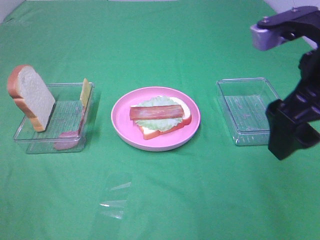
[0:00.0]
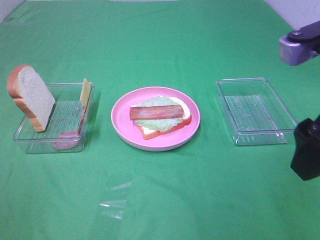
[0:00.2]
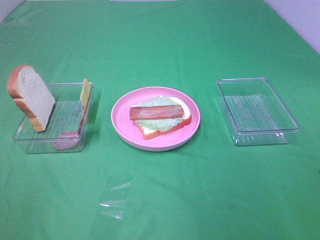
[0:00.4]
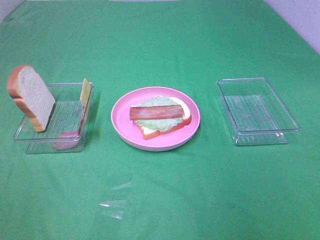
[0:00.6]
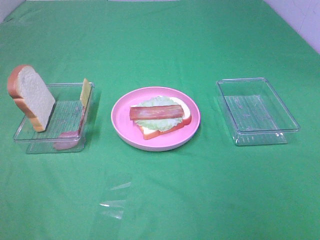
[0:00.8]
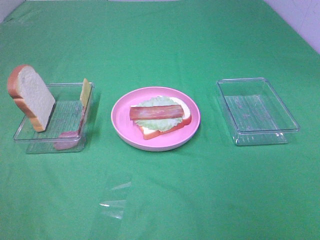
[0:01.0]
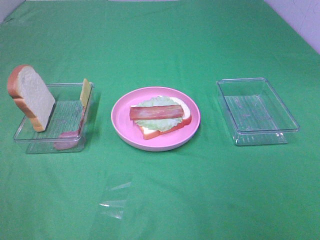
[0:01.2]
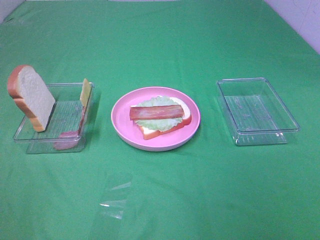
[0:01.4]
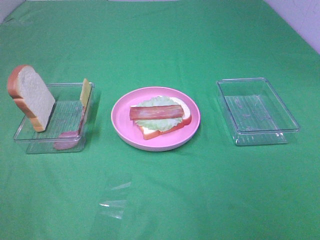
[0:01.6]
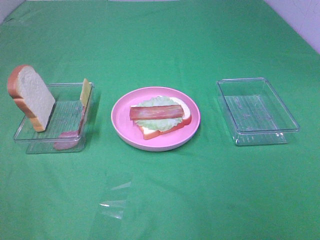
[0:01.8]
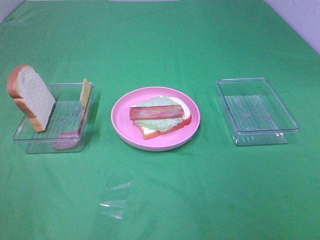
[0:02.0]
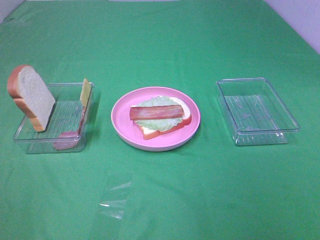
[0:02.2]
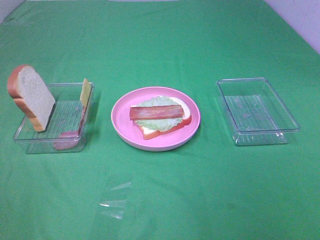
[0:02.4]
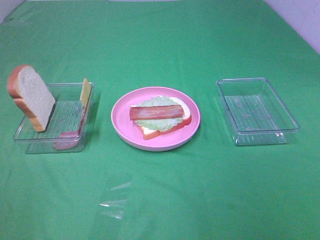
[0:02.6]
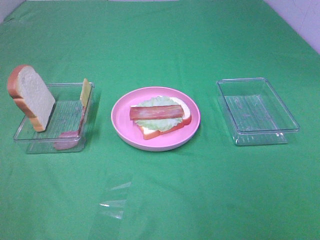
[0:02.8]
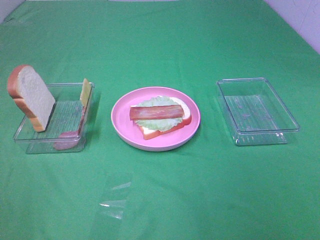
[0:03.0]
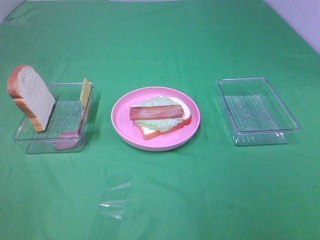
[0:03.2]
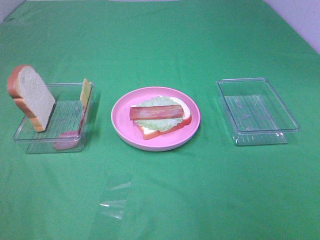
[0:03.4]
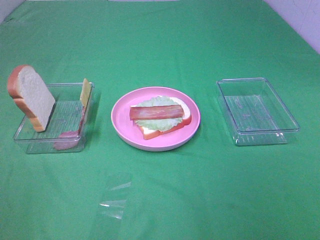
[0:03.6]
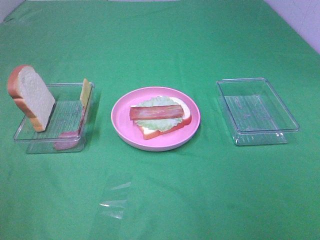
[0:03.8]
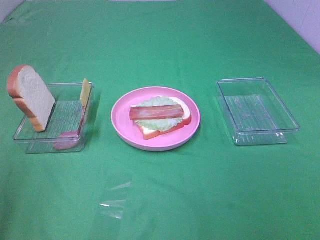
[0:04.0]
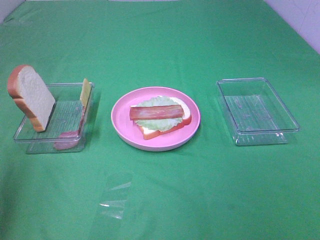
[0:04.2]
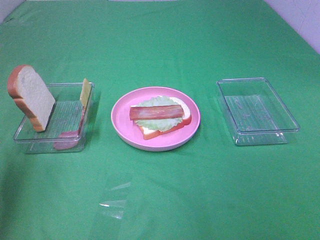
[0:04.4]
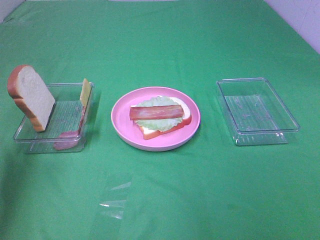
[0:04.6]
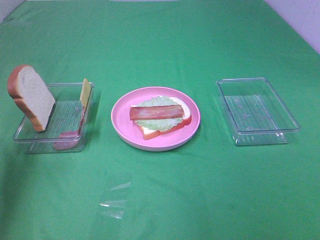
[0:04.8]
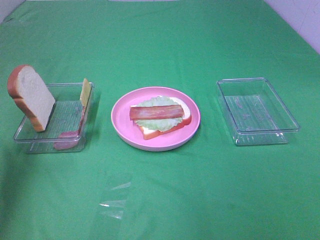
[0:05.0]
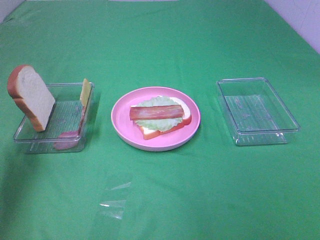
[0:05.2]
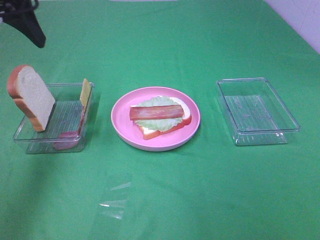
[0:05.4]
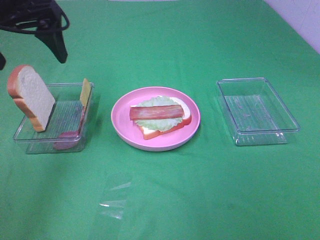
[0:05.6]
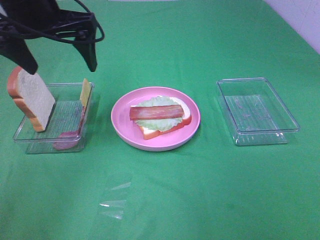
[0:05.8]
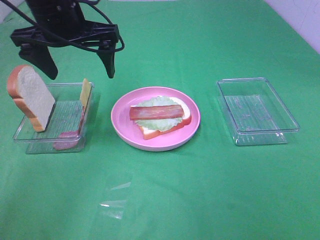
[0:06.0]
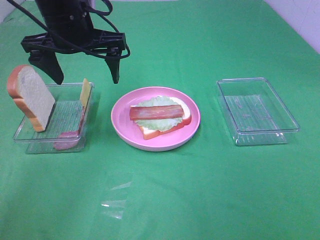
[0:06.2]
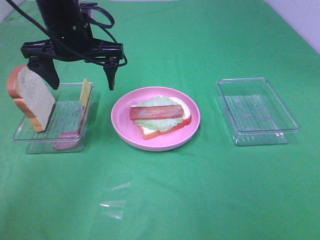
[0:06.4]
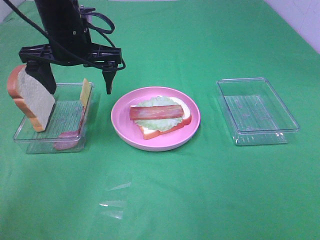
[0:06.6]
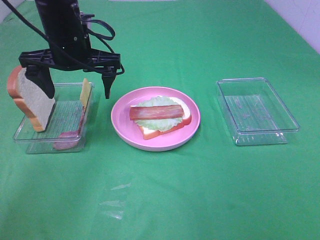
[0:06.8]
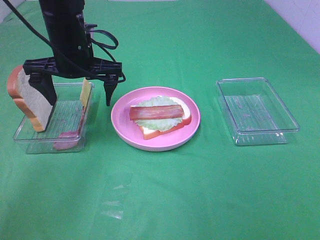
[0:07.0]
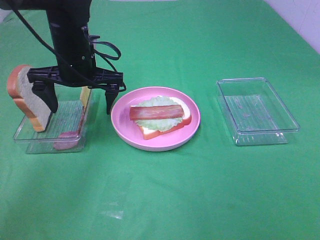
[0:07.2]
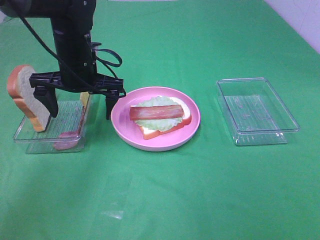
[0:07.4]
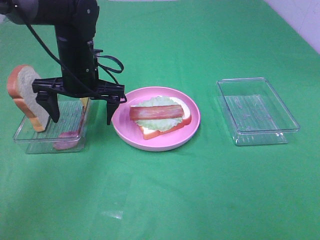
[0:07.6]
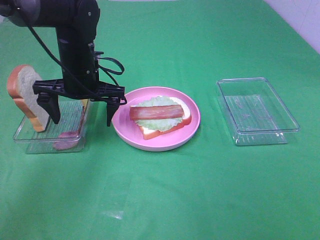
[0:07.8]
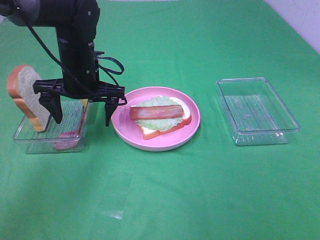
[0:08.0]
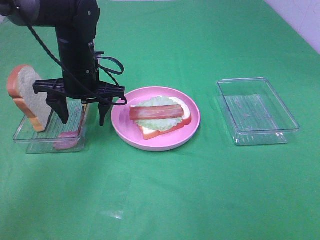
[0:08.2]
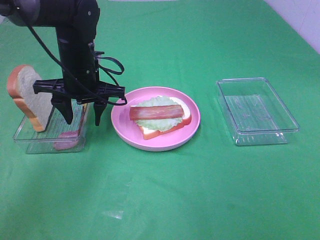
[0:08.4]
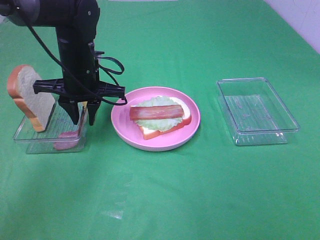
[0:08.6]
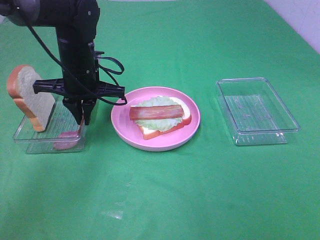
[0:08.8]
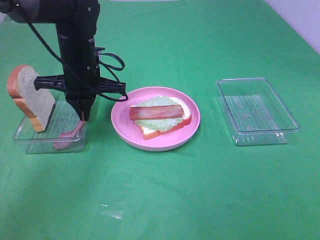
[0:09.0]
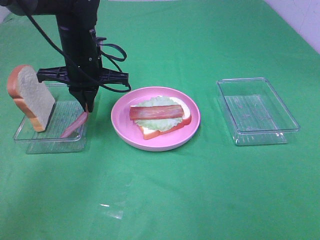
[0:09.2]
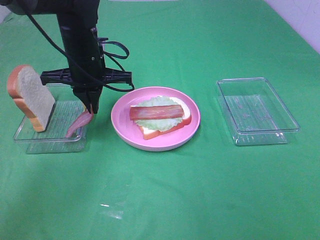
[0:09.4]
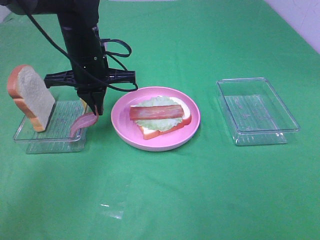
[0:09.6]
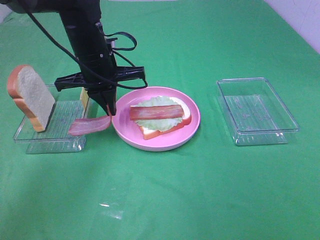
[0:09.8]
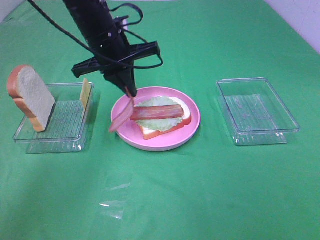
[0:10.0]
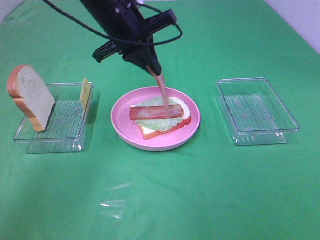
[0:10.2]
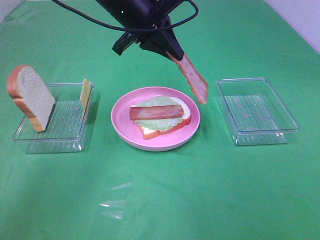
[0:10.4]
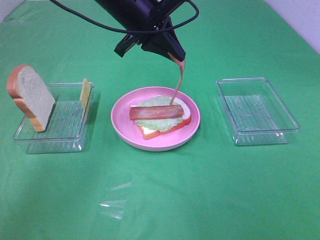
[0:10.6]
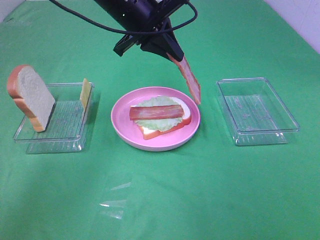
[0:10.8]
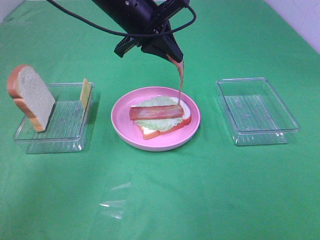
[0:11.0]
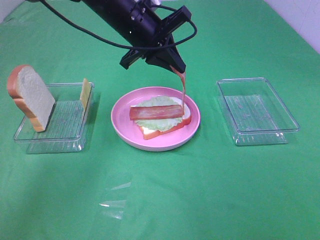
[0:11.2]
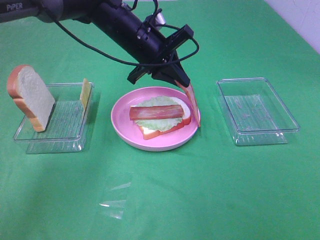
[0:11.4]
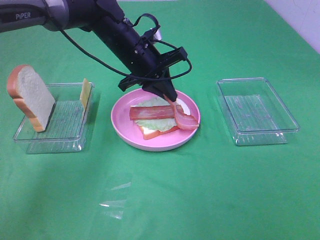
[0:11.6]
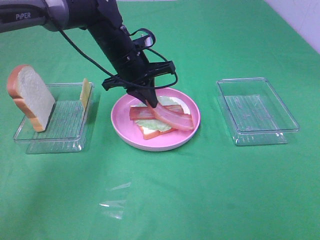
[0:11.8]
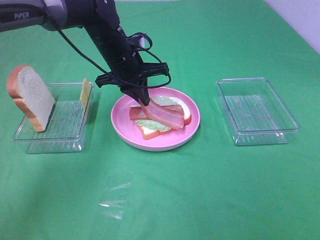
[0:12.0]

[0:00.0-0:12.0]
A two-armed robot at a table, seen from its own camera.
Task of the whole recording: Make sandwiches.
Step, 0:00.0 to 0:09.0: Left hand:grab the bacon.
0:00.0 to 0:01.6: The right gripper is displaced backward and to the right by approximately 20 cm.
0:01.6 to 0:03.0: The two grippers keep their place.
0:03.0 to 0:04.4: The left gripper shifts about 20 cm forward.
0:04.4 to 0:06.0: The left gripper goes about 25 cm to the right, forward and downward.
0:06.0 to 0:07.6: The left gripper goes approximately 10 cm downward.
0:07.6 to 0:09.0: The left gripper closes its fingers.
0:09.0 to 0:10.4: The left gripper heads upward and to the right, covering roughly 15 cm.
0:10.4 to 0:12.0: The left gripper goes approximately 10 cm downward.

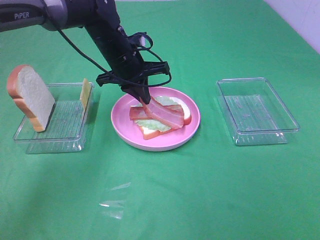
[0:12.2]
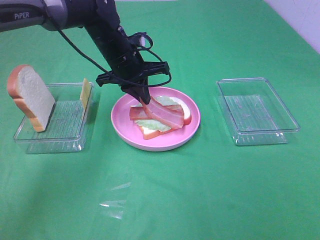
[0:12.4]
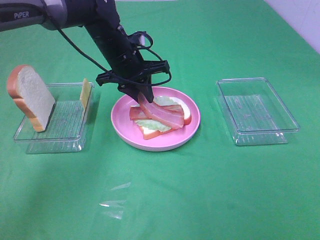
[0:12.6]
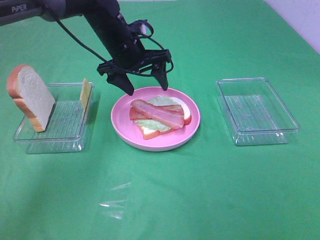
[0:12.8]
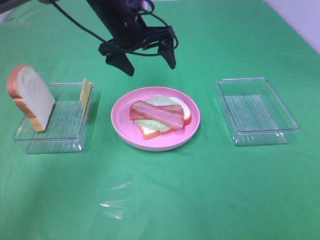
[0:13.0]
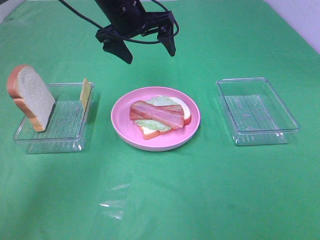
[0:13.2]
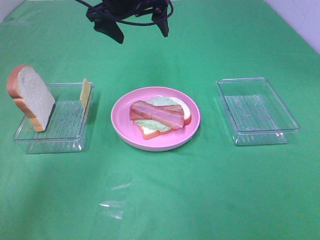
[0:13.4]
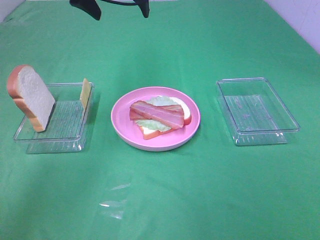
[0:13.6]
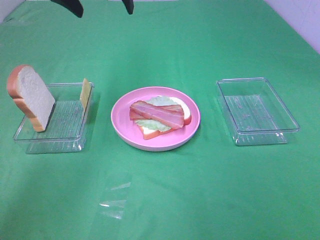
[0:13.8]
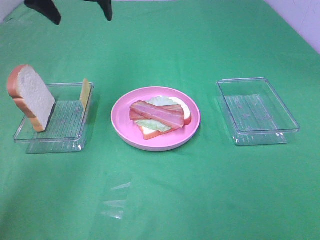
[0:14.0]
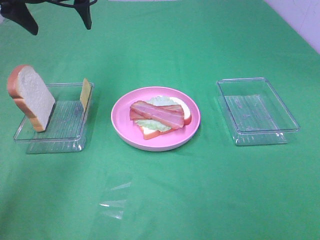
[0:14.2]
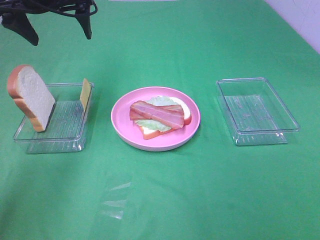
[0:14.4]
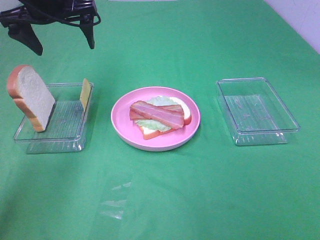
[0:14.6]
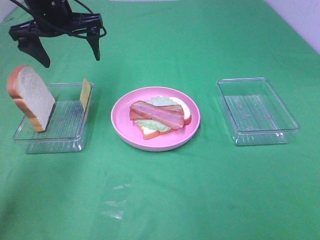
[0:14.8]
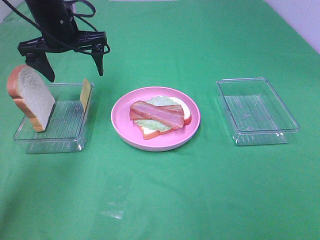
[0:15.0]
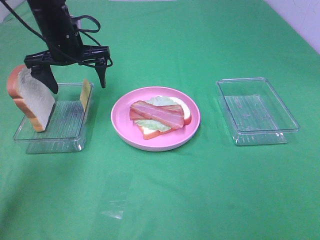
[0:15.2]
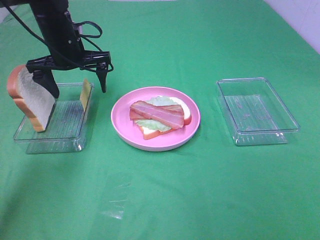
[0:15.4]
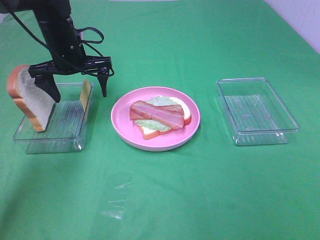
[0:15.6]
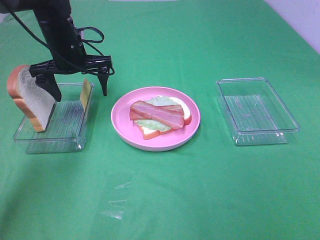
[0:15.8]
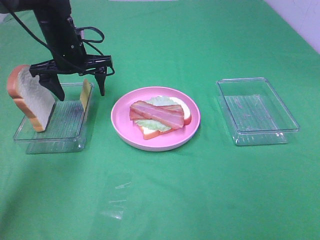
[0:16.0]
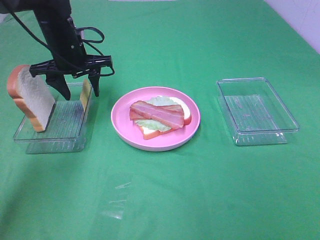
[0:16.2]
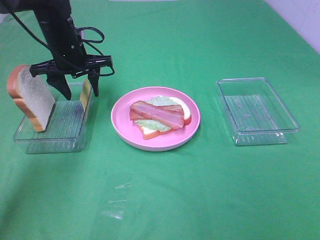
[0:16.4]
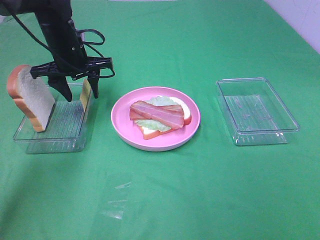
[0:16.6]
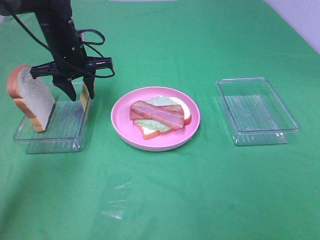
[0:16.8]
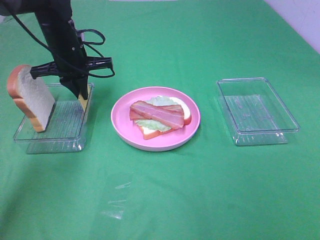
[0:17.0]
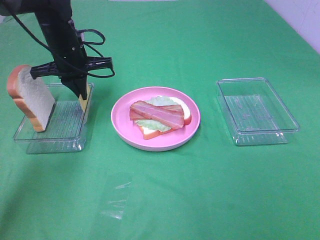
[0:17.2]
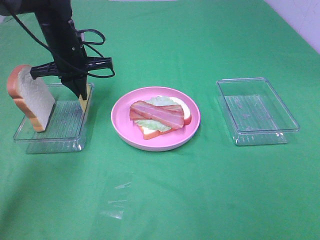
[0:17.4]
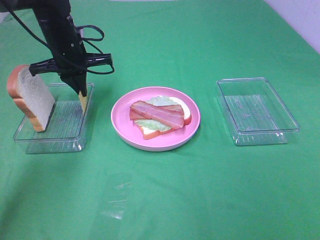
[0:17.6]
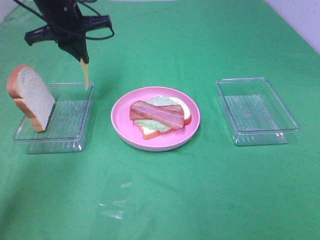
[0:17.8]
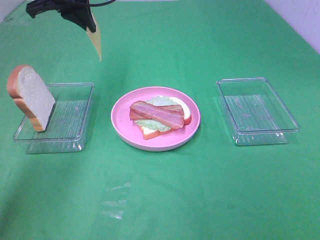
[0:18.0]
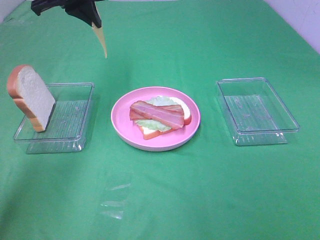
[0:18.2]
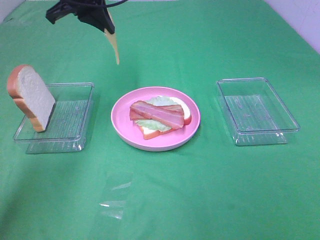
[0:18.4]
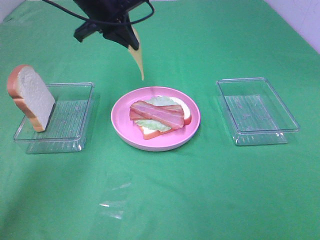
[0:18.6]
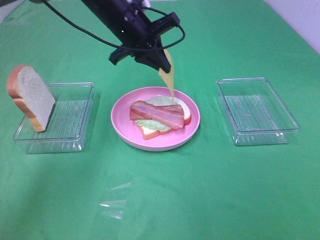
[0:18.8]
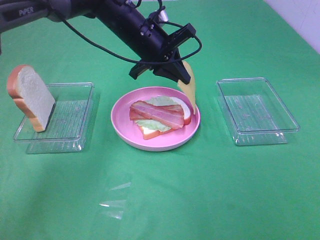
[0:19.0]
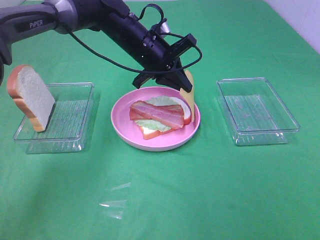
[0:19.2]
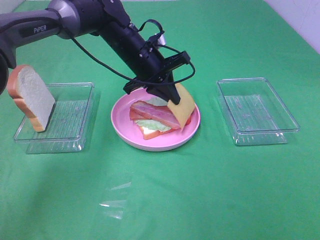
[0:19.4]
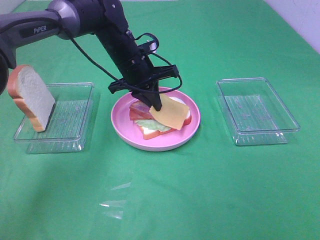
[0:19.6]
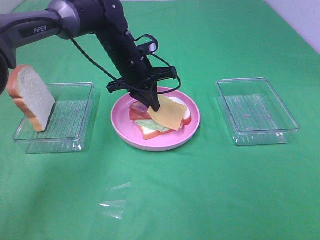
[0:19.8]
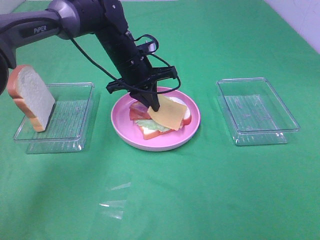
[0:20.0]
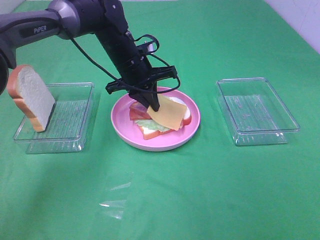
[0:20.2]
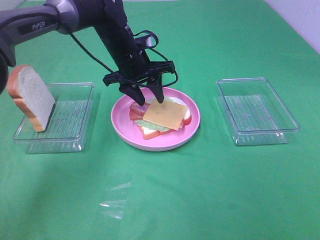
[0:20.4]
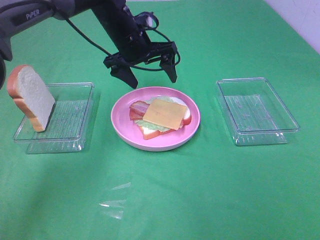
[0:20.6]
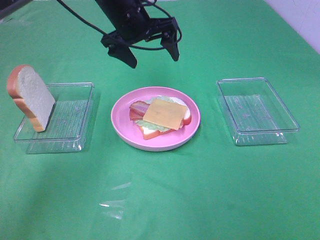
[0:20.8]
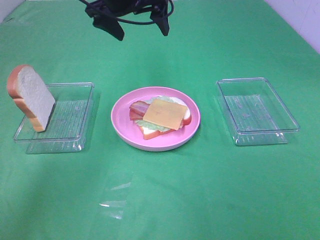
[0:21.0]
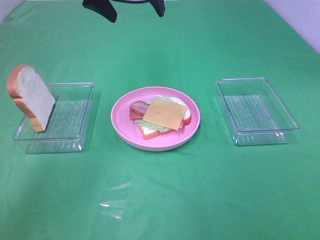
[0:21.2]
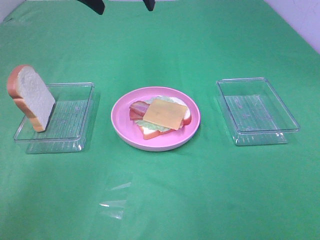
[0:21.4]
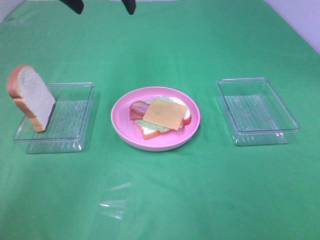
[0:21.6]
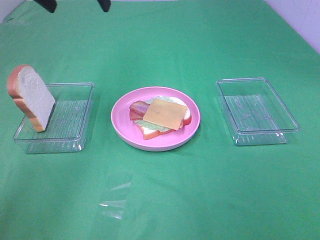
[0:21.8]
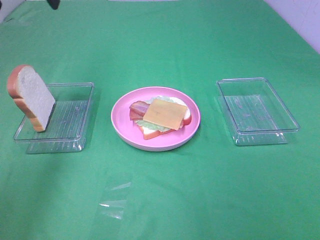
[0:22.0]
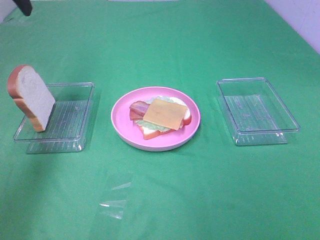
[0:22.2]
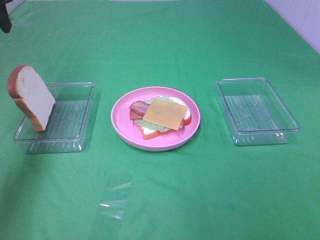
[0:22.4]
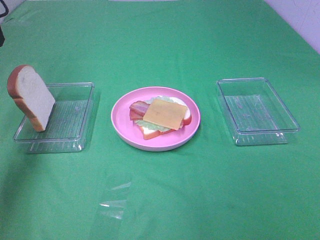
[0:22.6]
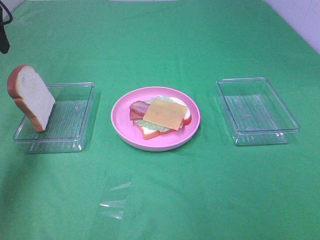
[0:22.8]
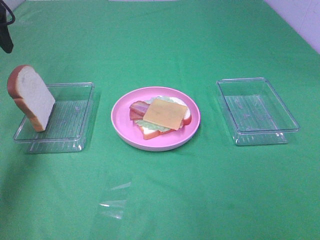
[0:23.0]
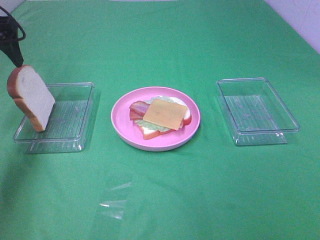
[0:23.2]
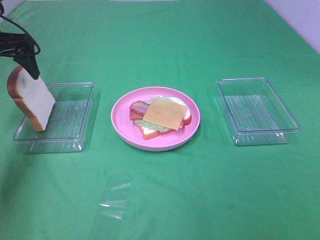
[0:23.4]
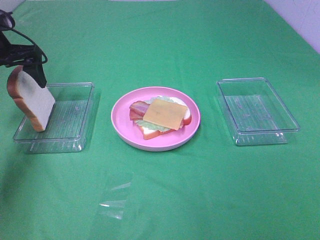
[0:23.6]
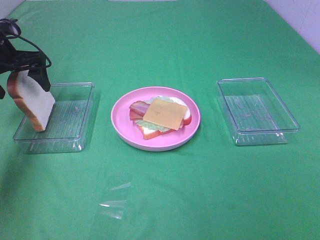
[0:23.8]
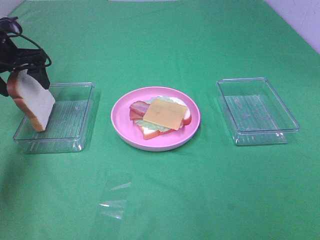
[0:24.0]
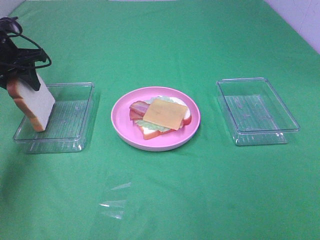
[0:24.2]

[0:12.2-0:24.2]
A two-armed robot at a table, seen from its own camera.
Task of the whole recording: Make sandwiches.
Step, 0:13.0 to 0:17.4: Left hand:grab the cheese slice.
Step, 0:17.6 to 0:20.6: Left hand:place the cheese slice on top of the bacon.
0:12.2 to 0:13.8: The left gripper heads upward, covering roughly 20 cm, and opens its fingers.
0:13.8 to 0:15.2: The left gripper is displaced downward by approximately 15 cm.
0:15.2 to 0:16.6: The left gripper closes its fingers.
0:16.6 to 0:18.2: The left gripper heads upward, covering approximately 15 cm, and closes its fingers.
0:18.2 to 0:19.8: The left gripper heads downward and to the right, covering roughly 20 cm.
0:19.8 to 0:21.2: The left gripper is displaced upward by about 20 cm, and opens up.
0:21.2 to 0:22.6: The left gripper goes some 25 cm to the left.
0:22.6 to 0:24.2: The left gripper heads downward and forward, covering approximately 15 cm, and closes up.
